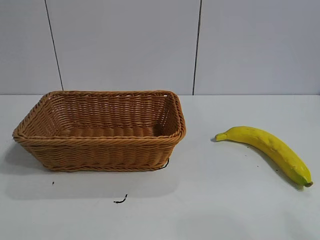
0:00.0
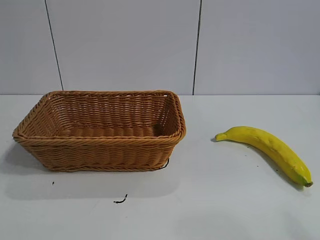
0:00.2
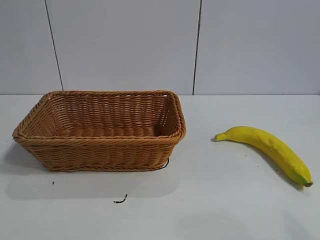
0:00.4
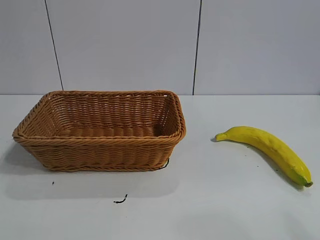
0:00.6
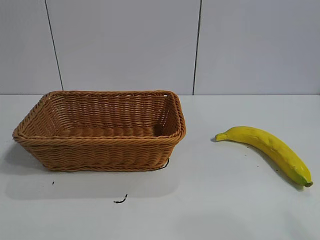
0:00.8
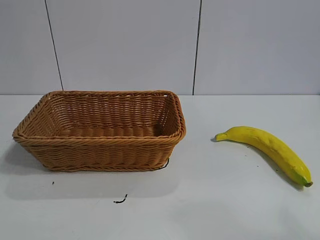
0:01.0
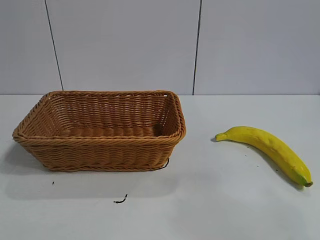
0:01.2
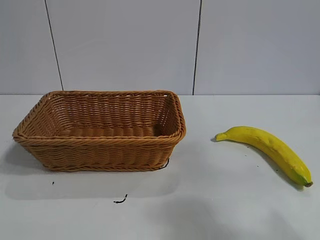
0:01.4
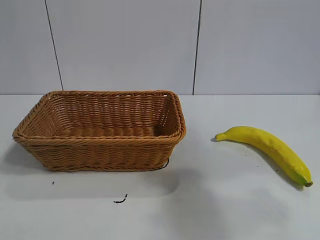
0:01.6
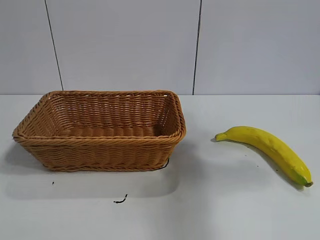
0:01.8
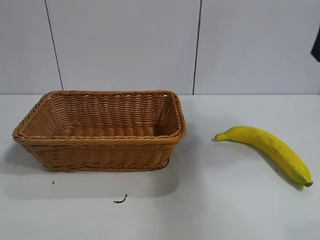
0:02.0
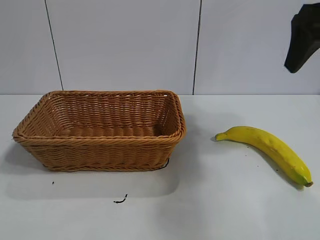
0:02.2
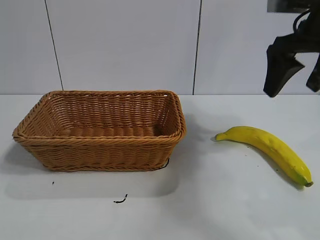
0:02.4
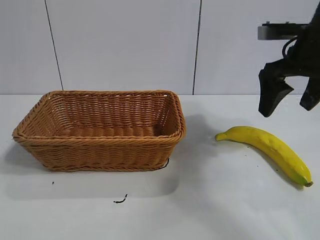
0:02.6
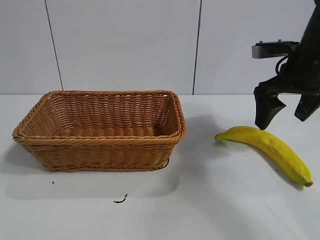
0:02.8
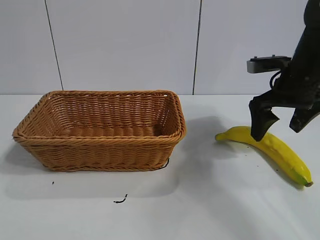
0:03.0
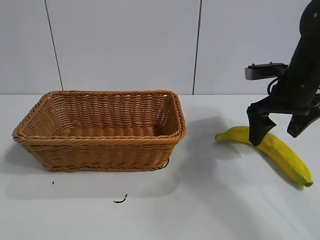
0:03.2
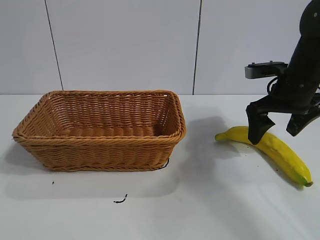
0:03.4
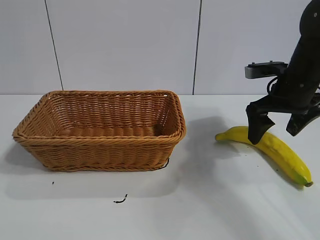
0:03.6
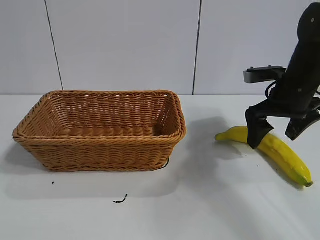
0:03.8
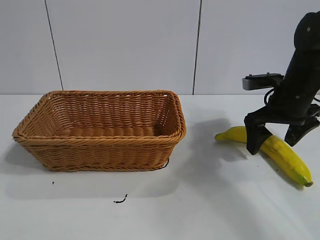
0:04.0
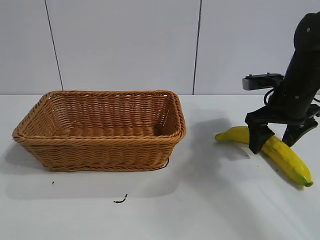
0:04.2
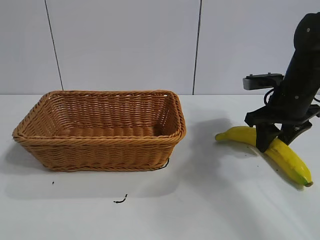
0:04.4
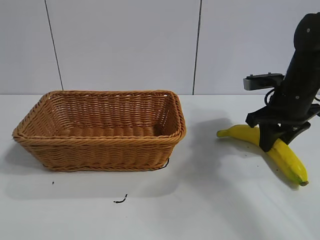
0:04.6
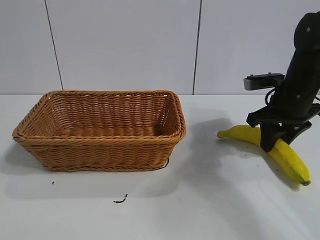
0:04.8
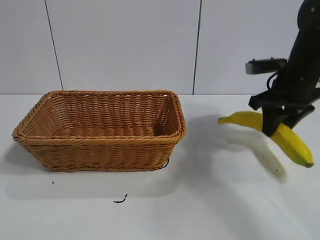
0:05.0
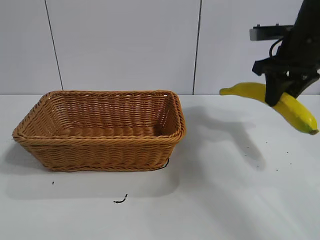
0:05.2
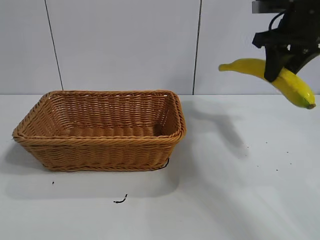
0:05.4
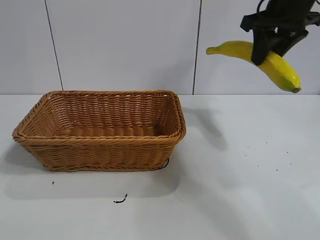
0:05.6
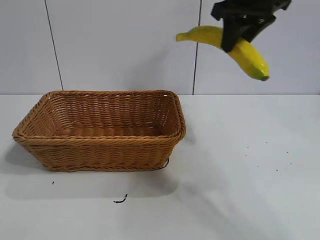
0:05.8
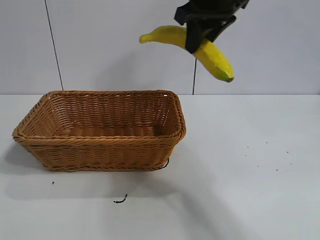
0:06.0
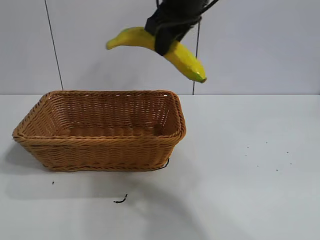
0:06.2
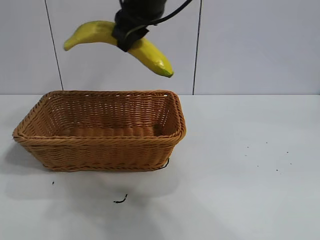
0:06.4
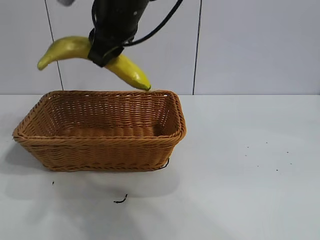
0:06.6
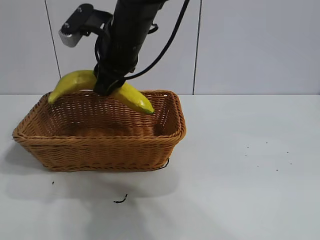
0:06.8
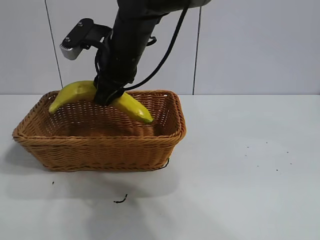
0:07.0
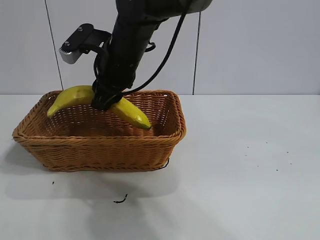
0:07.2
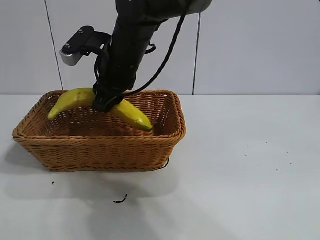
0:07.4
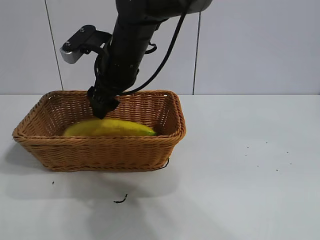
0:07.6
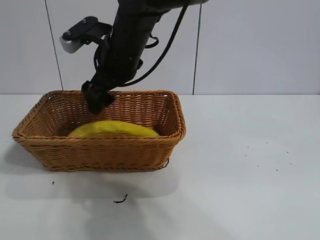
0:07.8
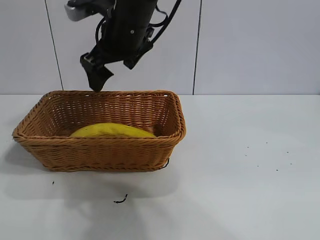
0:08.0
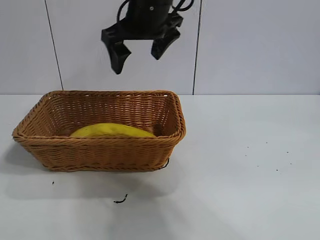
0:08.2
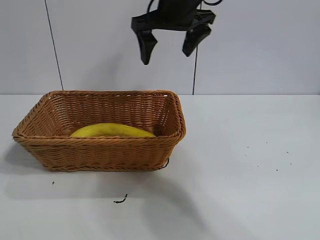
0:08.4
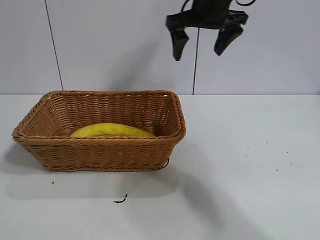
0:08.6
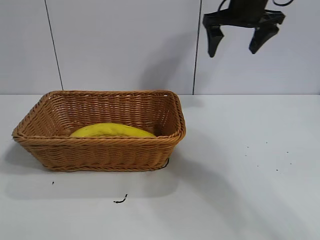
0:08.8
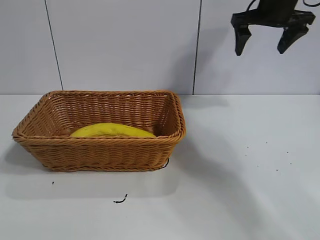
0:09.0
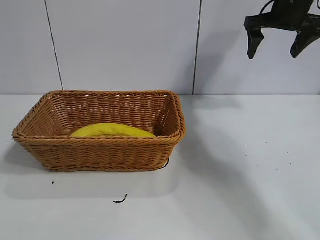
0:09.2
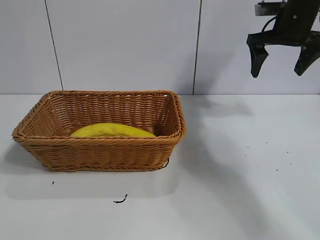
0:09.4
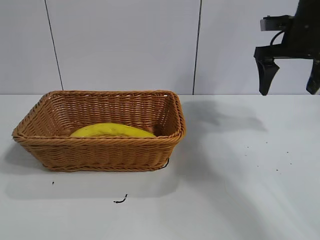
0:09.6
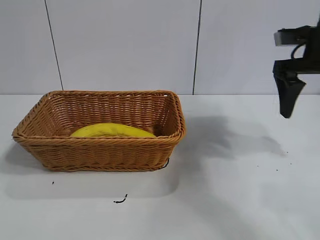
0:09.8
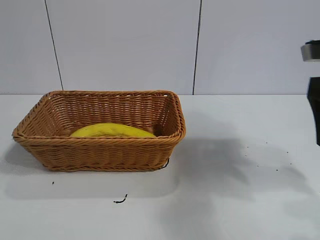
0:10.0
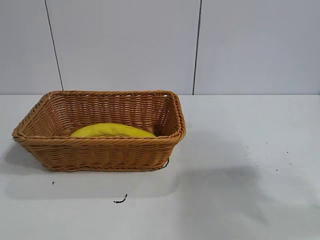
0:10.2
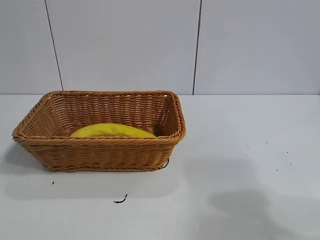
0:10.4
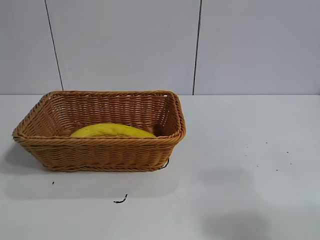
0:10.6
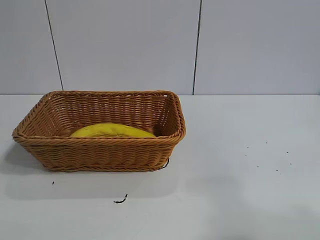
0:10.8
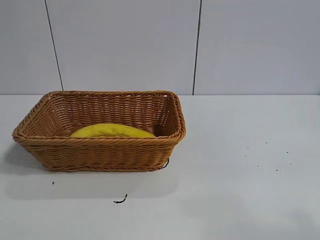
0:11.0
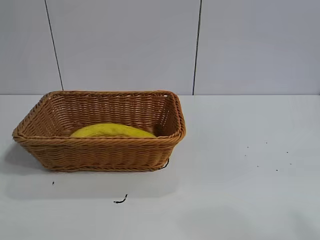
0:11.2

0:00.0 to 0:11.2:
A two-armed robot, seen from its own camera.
Task of the whole recording: pick up the banana and put it into the basket.
Step, 0:02.0 to 0:04.8: Grasp the banana with right gripper.
Step, 0:05.0 to 0:07.6: Place the banana in the basket with right gripper.
